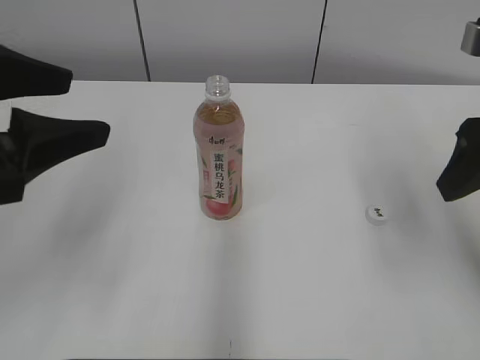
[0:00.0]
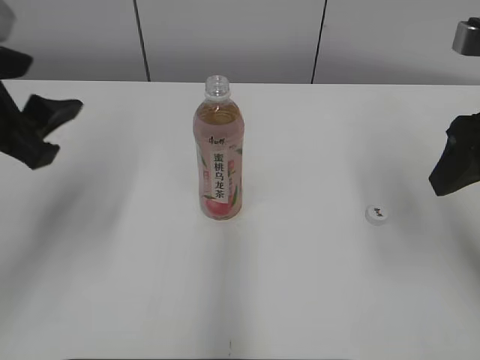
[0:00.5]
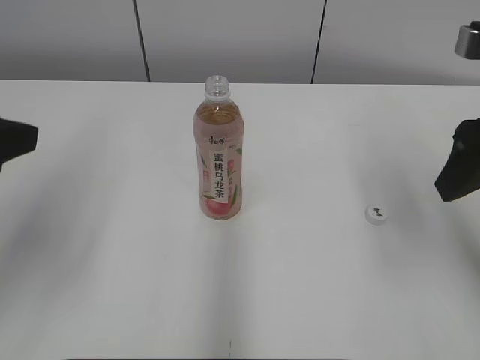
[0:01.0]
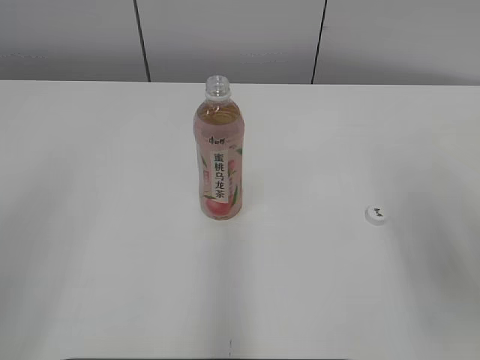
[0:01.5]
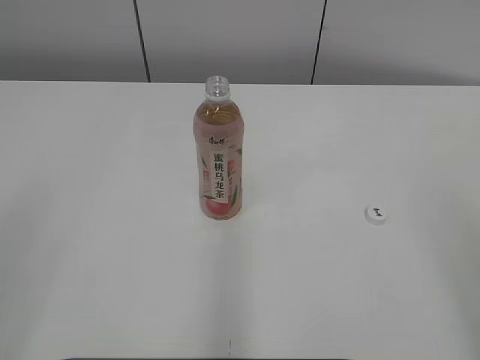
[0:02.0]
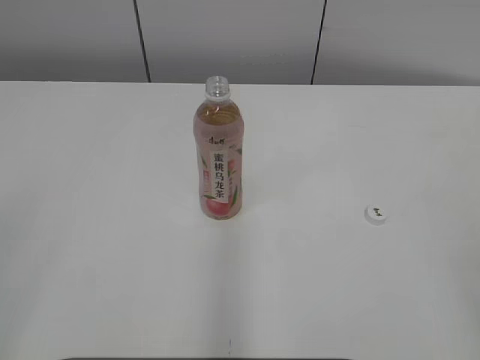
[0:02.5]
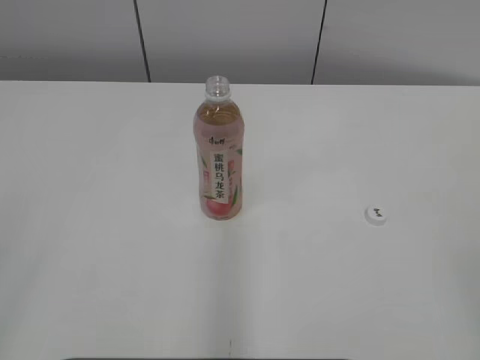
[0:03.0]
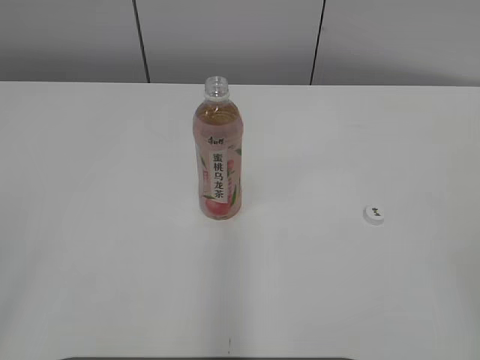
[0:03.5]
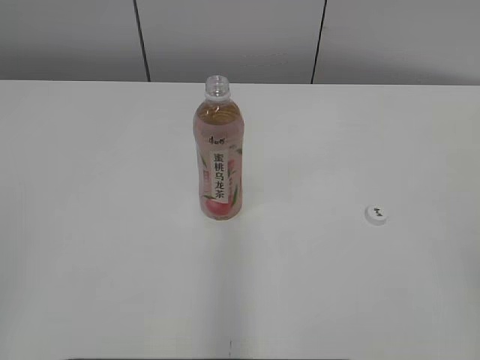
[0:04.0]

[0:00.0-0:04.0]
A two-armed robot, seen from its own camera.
0:00.0 to 0:02.0: The left gripper heads backward and to the left, covering roughly 20 cm. Meanwhile the right gripper shifts roughly 15 cm backward.

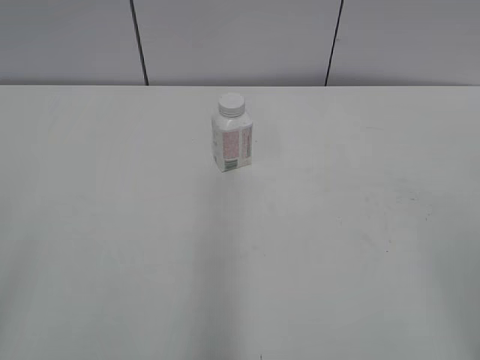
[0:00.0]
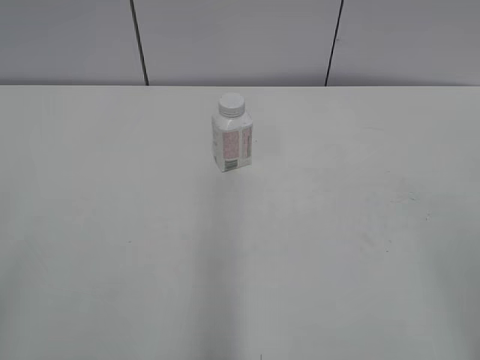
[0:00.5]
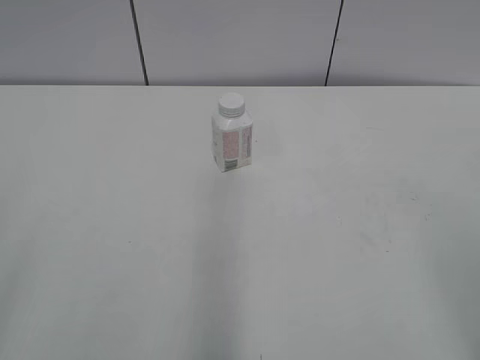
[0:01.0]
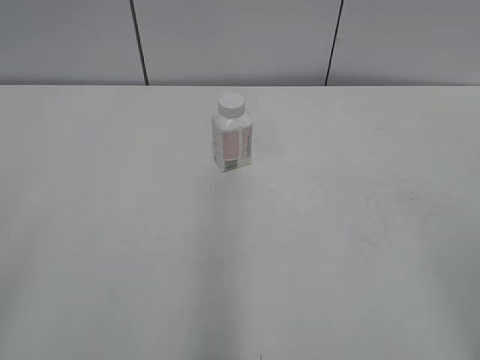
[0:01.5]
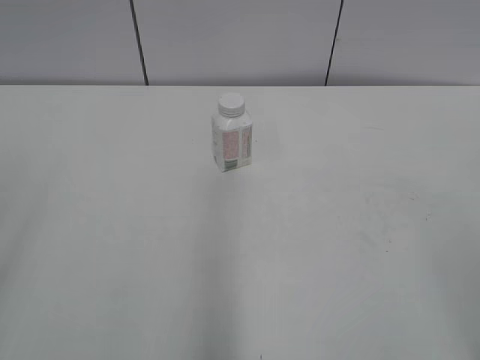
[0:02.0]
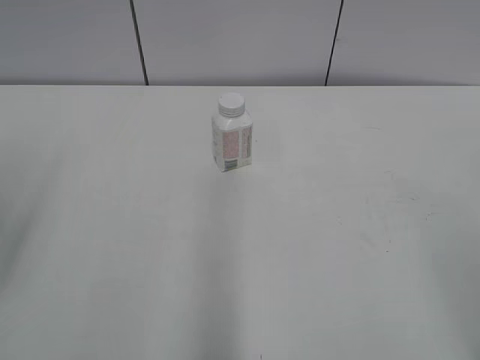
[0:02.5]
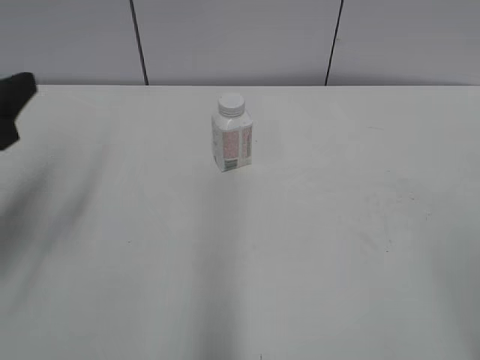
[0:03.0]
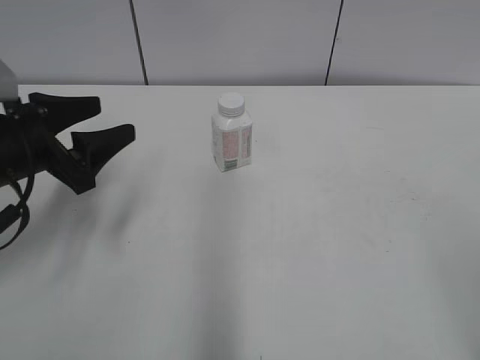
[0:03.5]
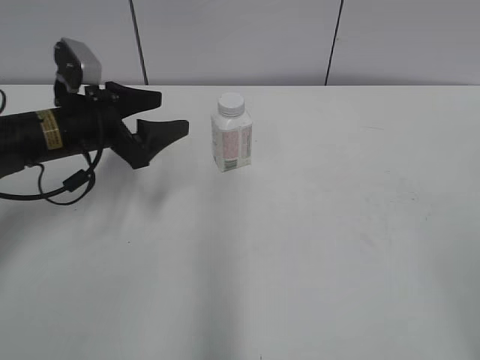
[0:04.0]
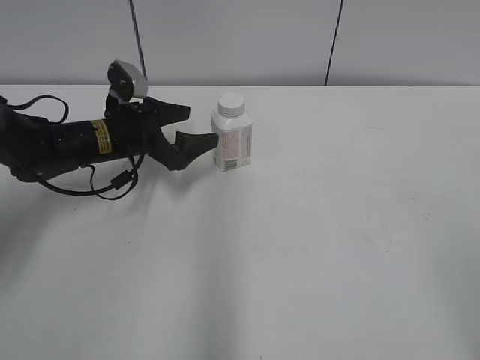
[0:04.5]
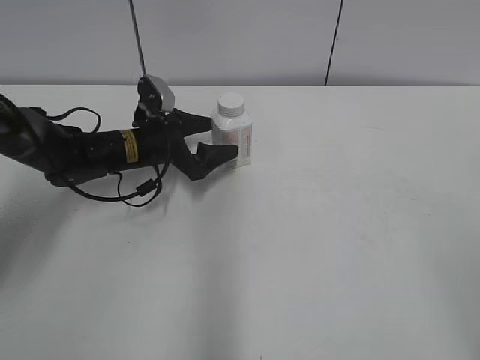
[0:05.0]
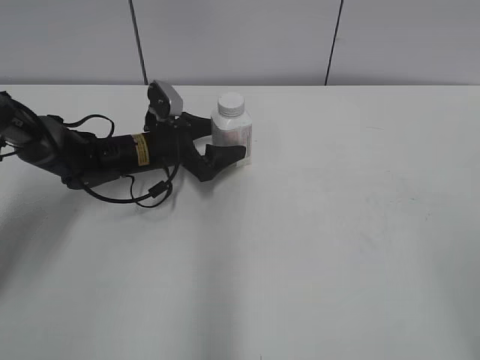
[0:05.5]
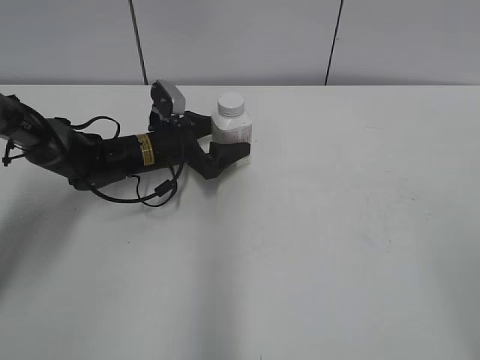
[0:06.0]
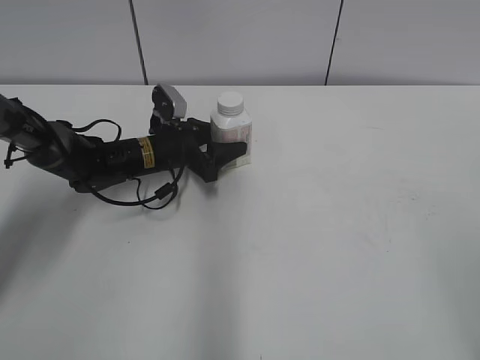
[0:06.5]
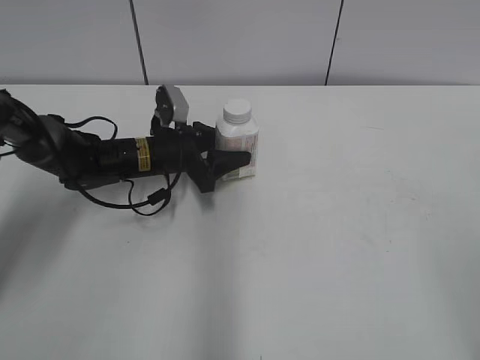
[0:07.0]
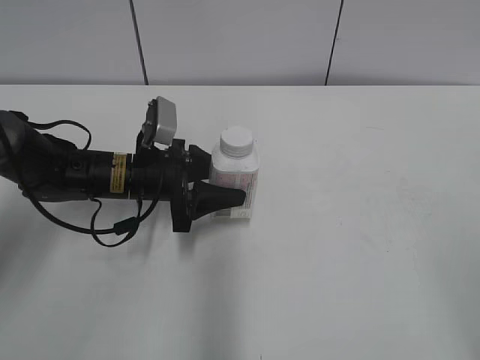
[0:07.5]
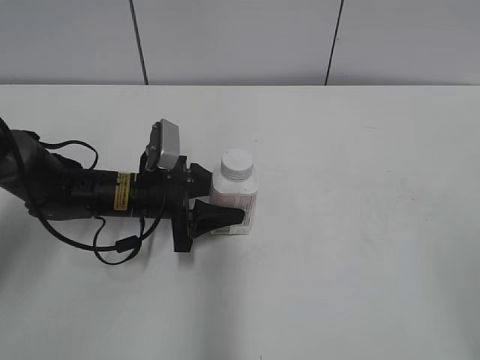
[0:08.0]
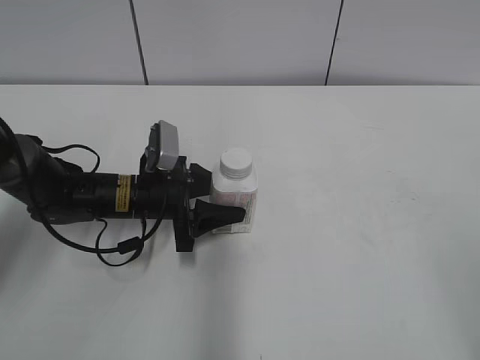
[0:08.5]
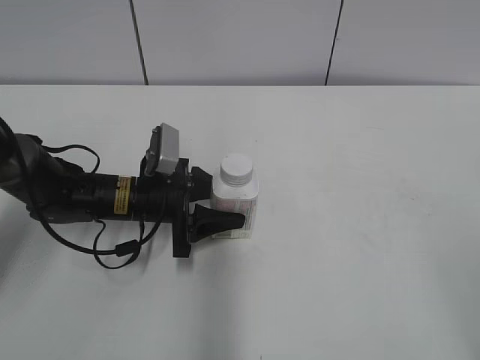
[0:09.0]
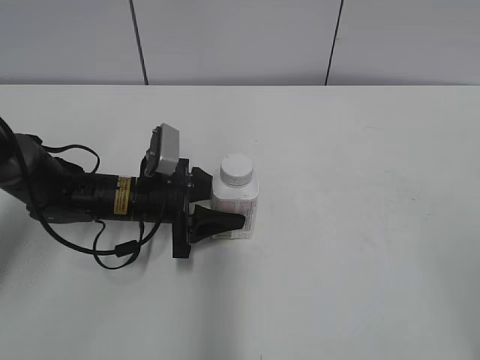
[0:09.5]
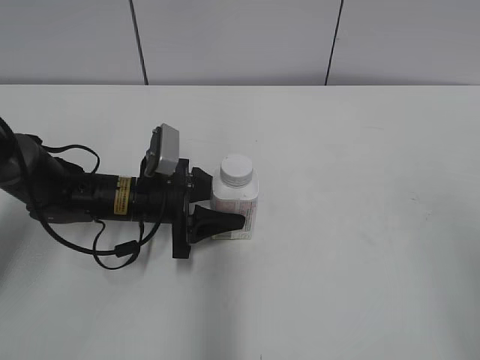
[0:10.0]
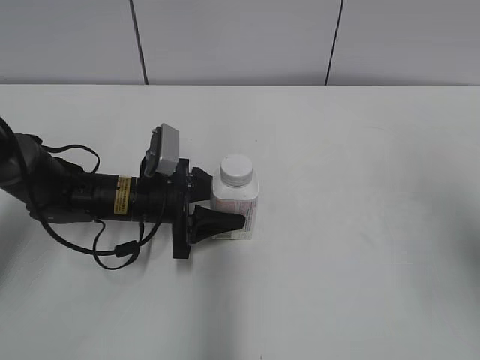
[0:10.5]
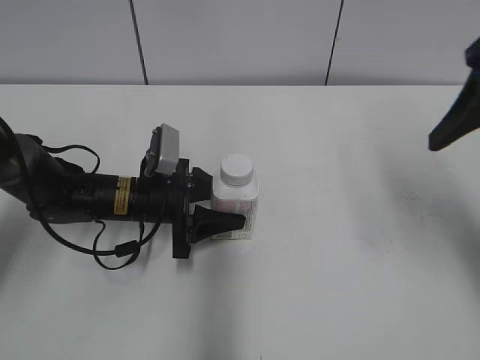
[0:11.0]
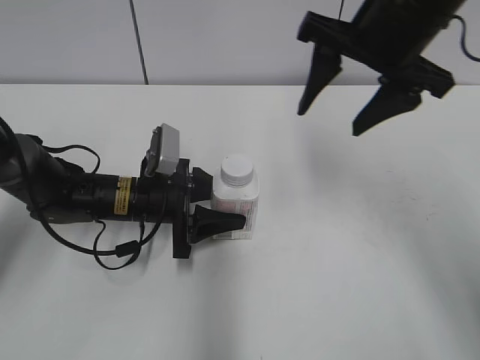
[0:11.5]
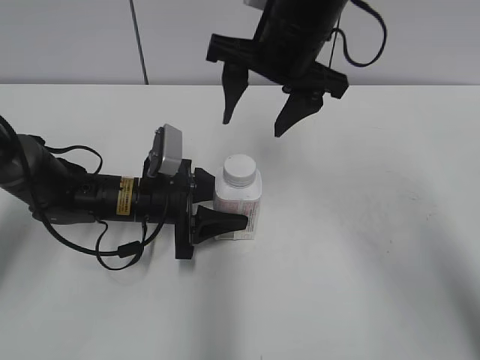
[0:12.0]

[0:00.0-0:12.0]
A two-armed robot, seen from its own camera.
Step, 0:00.0 to 0:06.0: Grasp the bottle and move it to the center of the table with the left gripper.
Step, 0:06.5 to 0:09.0: Lift the bottle and move it to the center of the table with the left gripper.
0:02.0 to 0:04.0: The left gripper moves forward and downward, roughly 35 cm.
0:04.0 to 0:06.0: The left gripper shifts about 15 cm downward, forward and to the right.
0:06.0 to 0:08.0: The left gripper shifts about 10 cm backward, and closes its fingers.
0:08.0 to 0:10.0: The right gripper is displaced upward by approximately 5 cm.
0:10.0 to 0:12.0: The right gripper travels forward and to the left by some 40 cm.

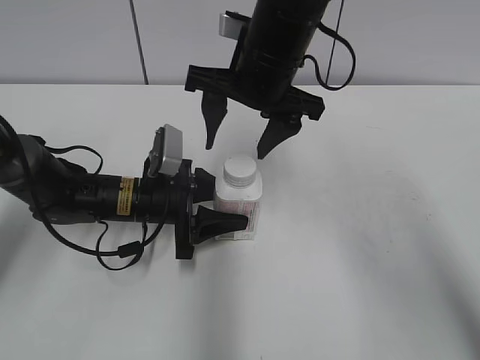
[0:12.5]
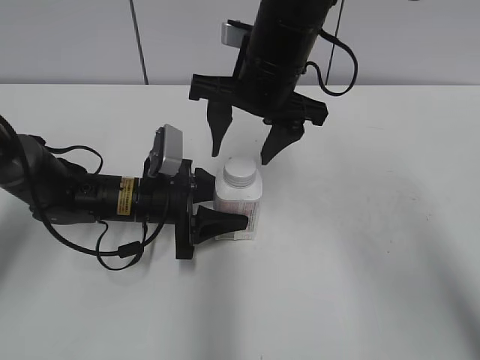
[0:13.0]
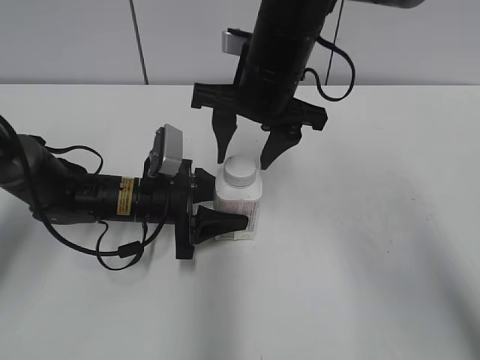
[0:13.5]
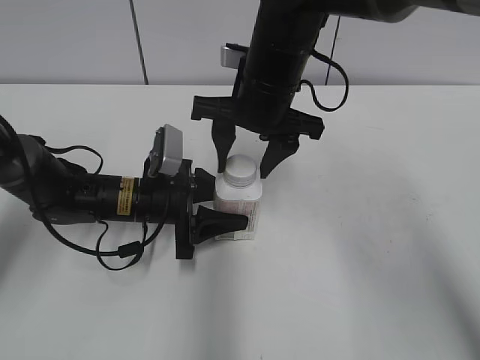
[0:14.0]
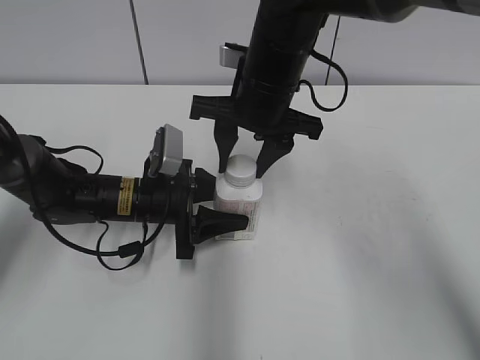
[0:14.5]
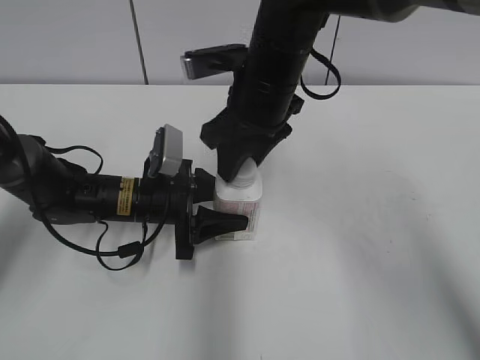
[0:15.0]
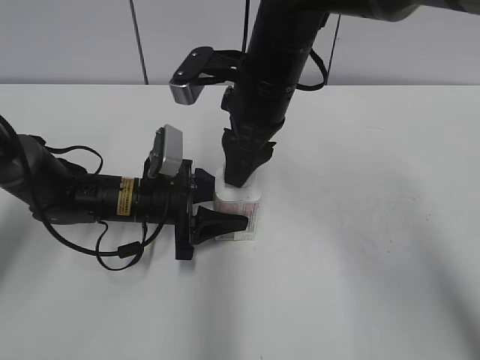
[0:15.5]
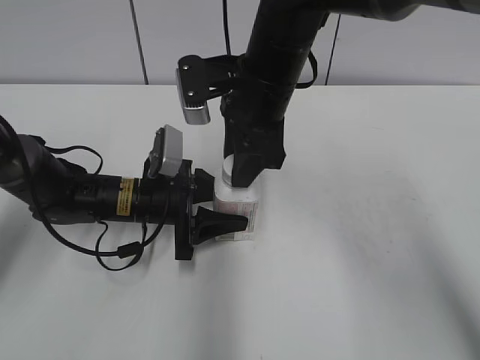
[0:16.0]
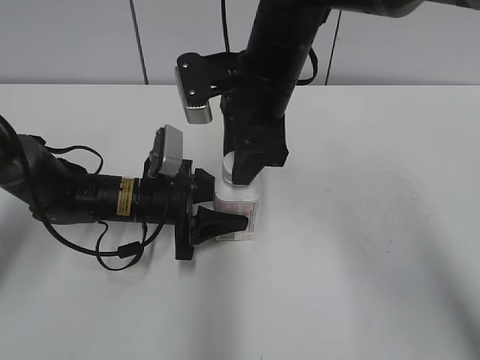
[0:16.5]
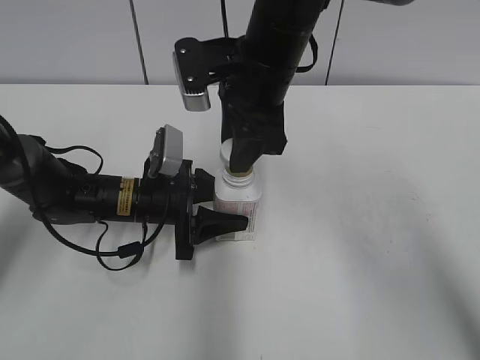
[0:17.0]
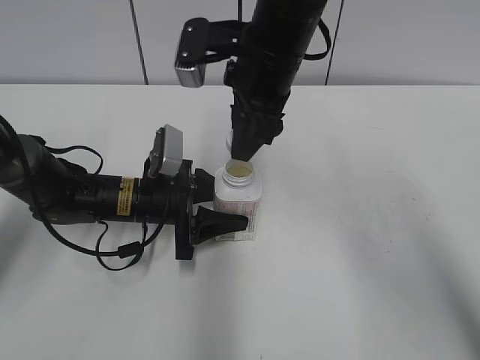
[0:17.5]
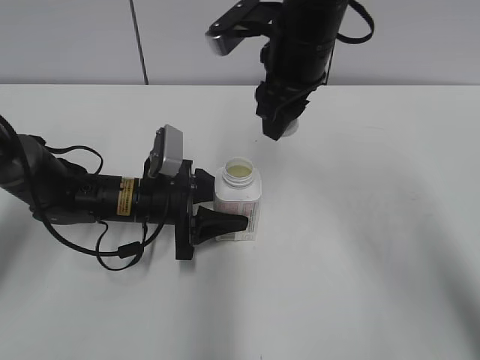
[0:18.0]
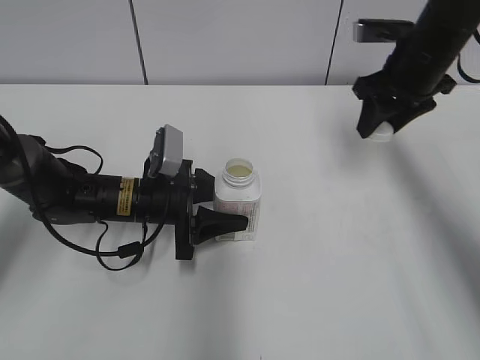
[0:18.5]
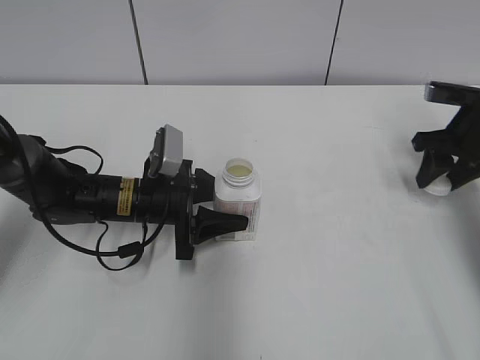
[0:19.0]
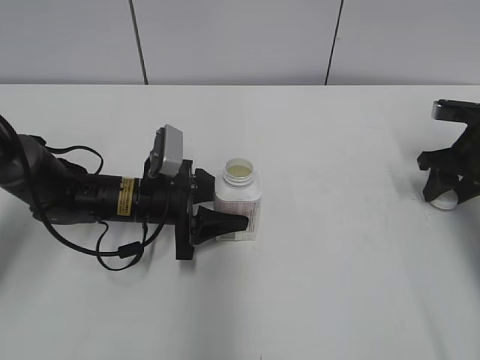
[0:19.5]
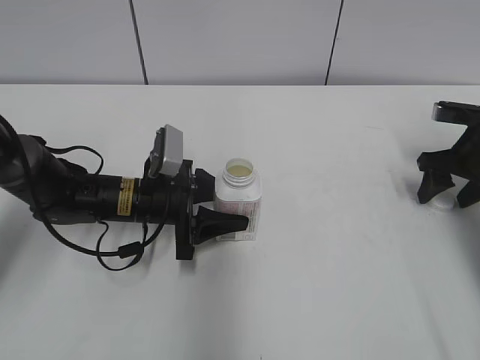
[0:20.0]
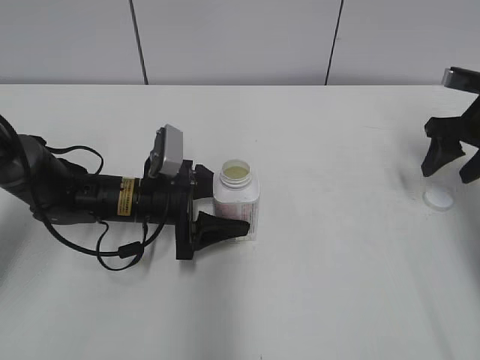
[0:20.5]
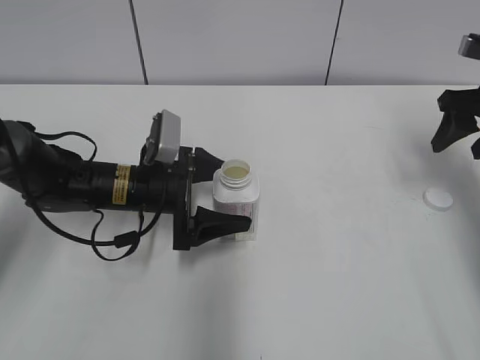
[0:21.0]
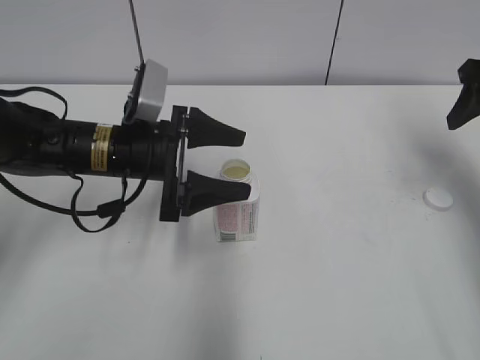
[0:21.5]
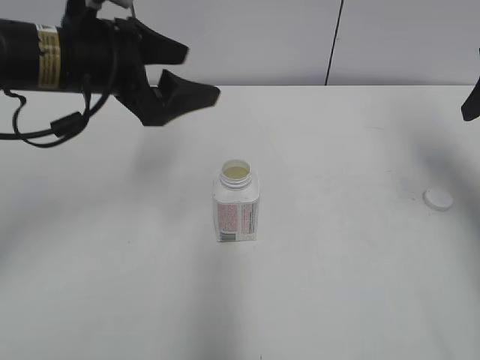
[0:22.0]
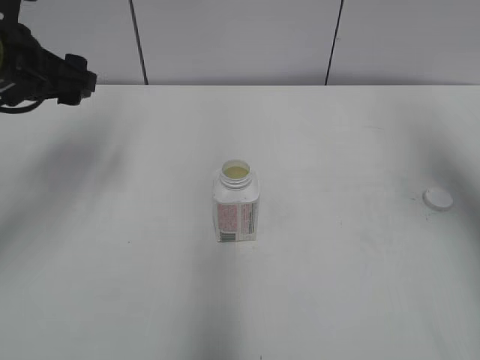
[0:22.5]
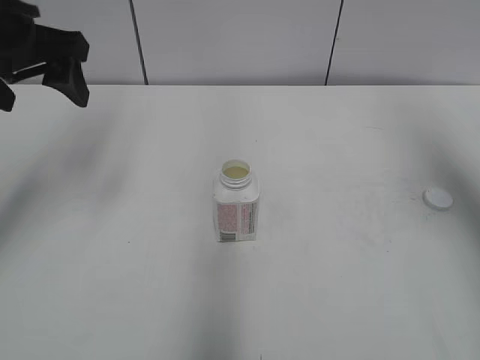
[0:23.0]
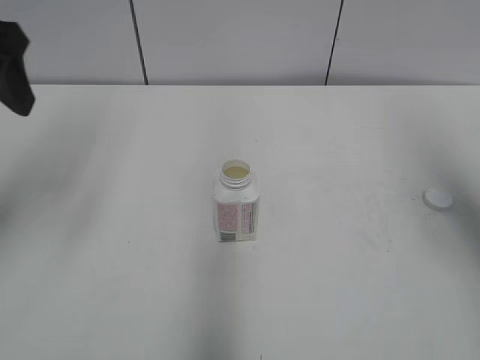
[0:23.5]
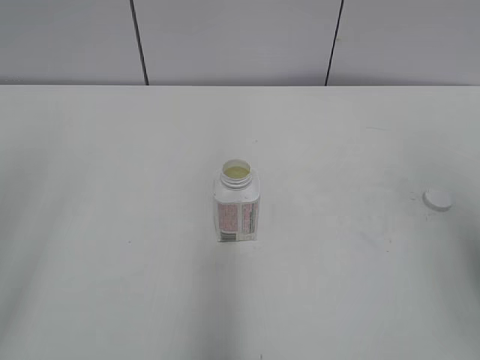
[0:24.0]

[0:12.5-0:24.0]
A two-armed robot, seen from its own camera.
Step, 0:12.5 to 0:17.5: Unscrew the bottle cap with the right gripper while holding the bottle with the left gripper.
Step, 0:18.0 to 0:20.0: Place the bottle cap on the table with the right gripper.
Step, 0:20.5 to 0:21.0: Place the bottle on the table with the left gripper.
0:12.5 to 0:14.5: The right gripper closes up.
0:16.5 to 0:18.5: The right gripper travels to the right by roughly 20 cm.
0:18.5 to 0:20.0: The right gripper goes some 15 cm to the right and downward, and opens up.
0:20.0 to 0:22.0: The grippers both shift upward by approximately 20 cm. The left gripper opens up.
0:22.0 to 0:24.0: The right gripper moves backward, about 20 cm; the left gripper shifts approximately 25 cm backward, to the left and upward.
